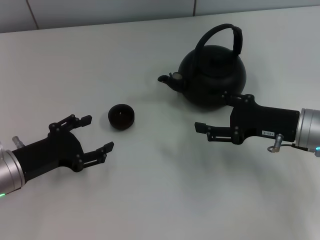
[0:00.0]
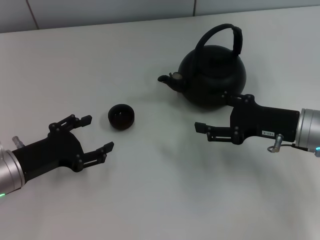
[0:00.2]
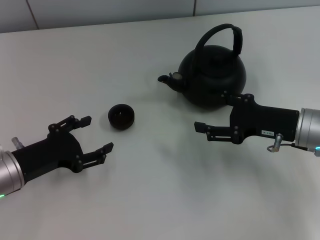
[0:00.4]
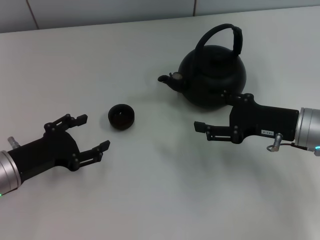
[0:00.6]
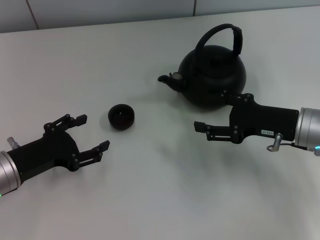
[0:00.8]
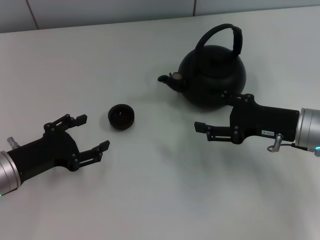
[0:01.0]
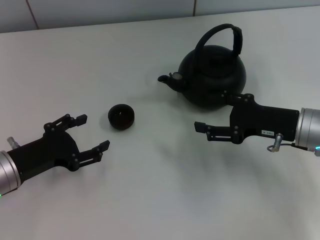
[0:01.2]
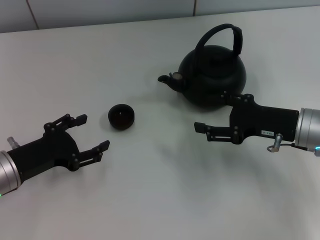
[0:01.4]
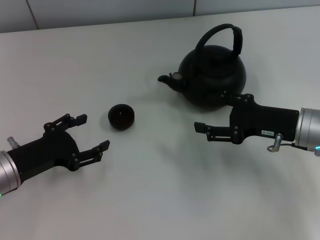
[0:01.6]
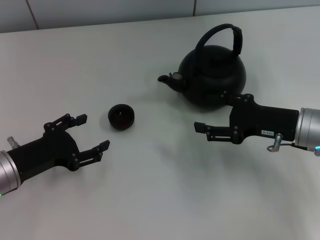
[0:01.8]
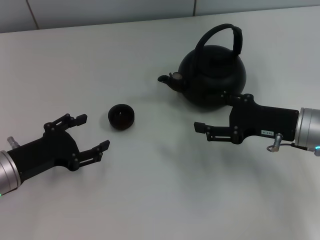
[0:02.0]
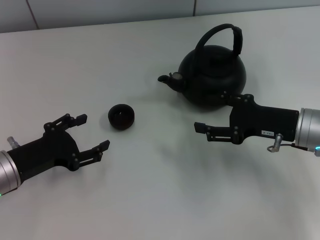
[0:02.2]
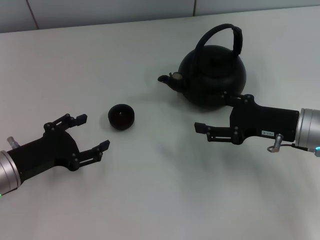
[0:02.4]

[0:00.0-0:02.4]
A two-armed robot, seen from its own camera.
Task of the whole recording: Grasp the handle of the teapot with one hand and pour tea into the teacup.
0:00.0 to 0:02.4: The two grippers keep their place.
